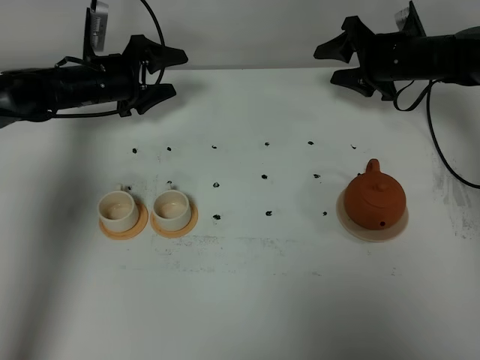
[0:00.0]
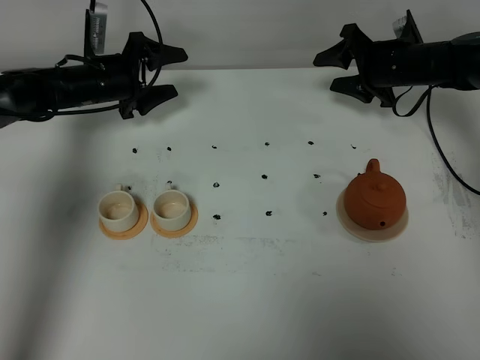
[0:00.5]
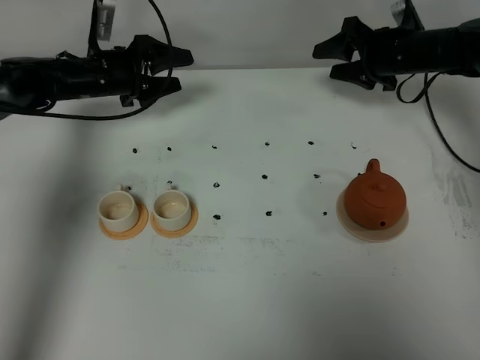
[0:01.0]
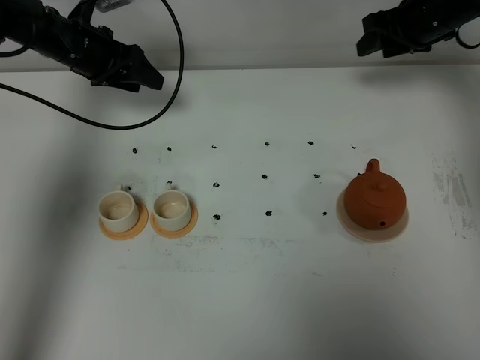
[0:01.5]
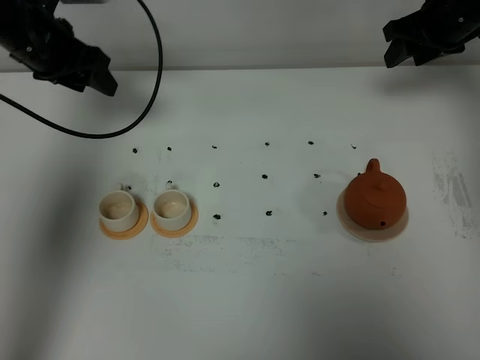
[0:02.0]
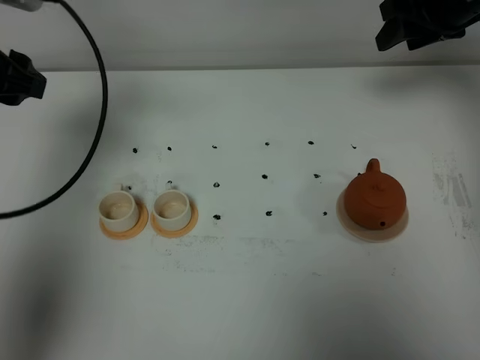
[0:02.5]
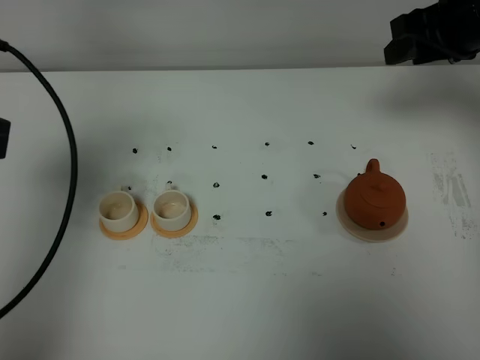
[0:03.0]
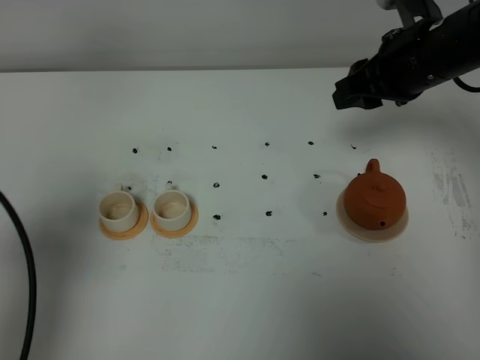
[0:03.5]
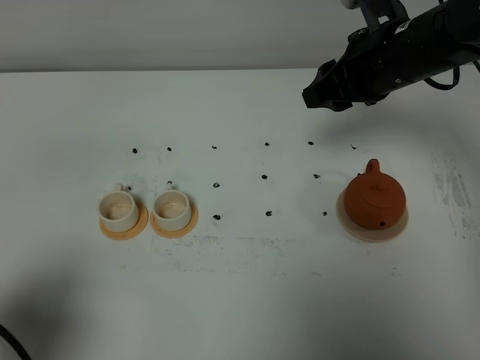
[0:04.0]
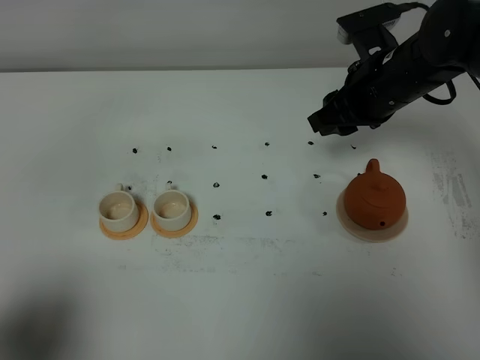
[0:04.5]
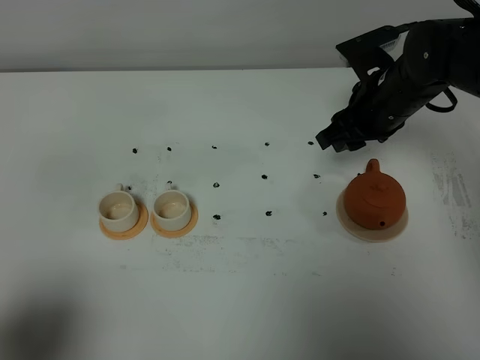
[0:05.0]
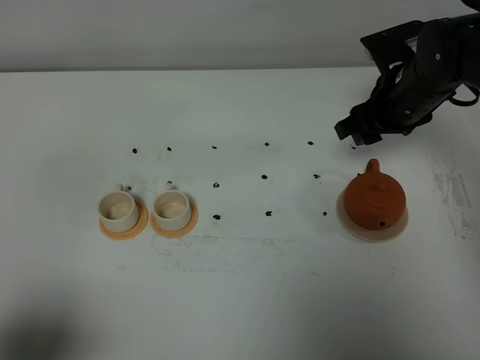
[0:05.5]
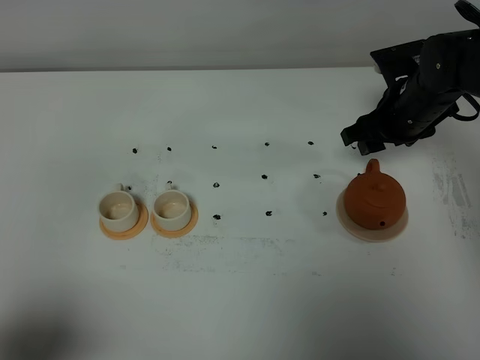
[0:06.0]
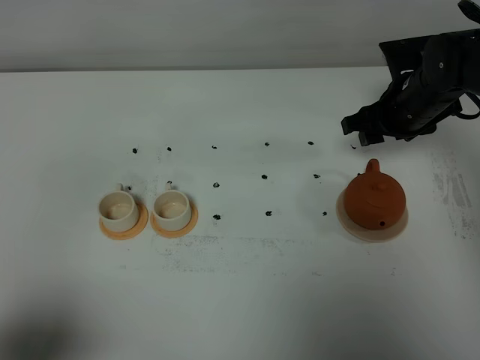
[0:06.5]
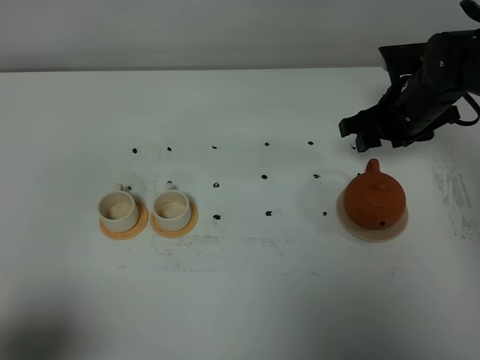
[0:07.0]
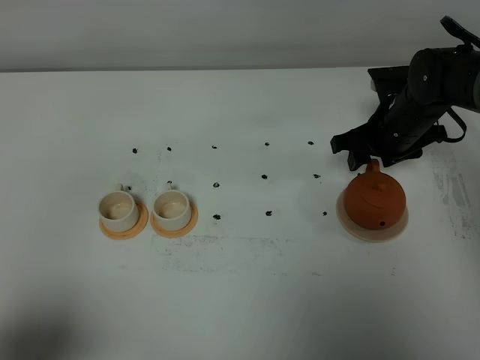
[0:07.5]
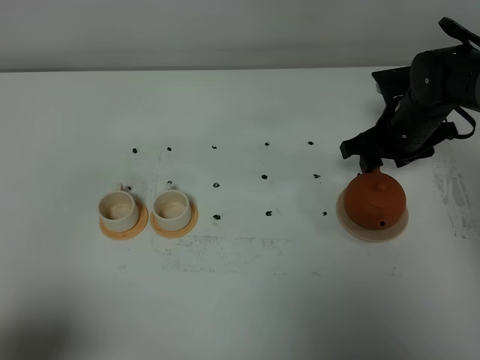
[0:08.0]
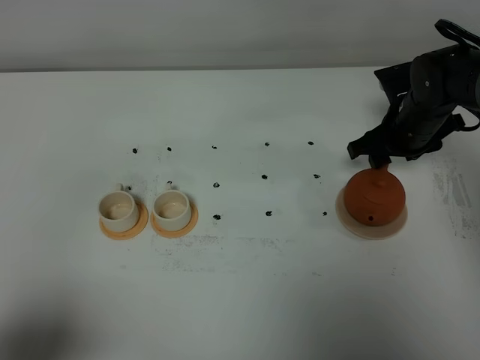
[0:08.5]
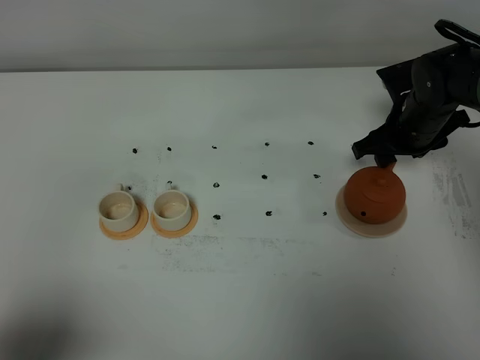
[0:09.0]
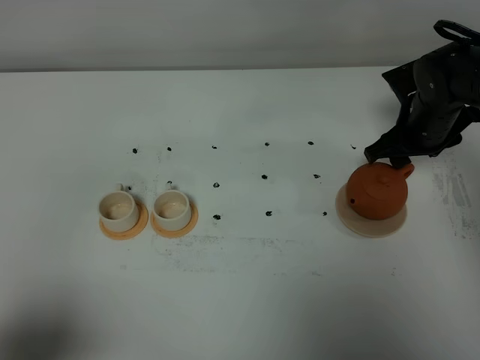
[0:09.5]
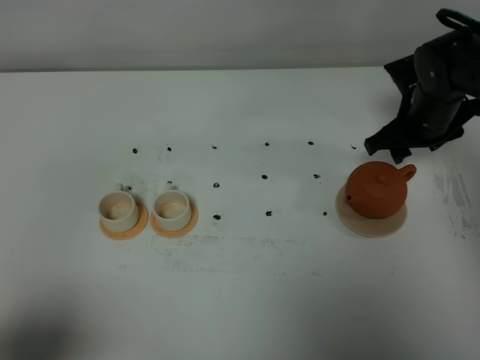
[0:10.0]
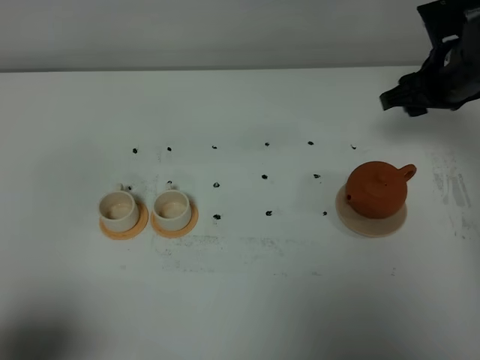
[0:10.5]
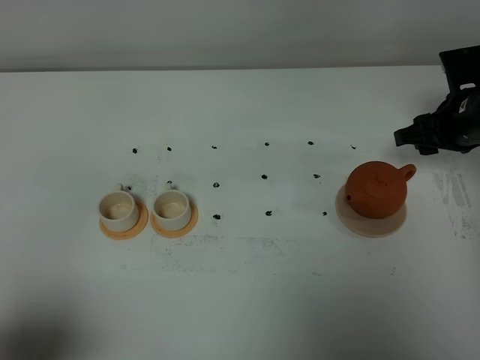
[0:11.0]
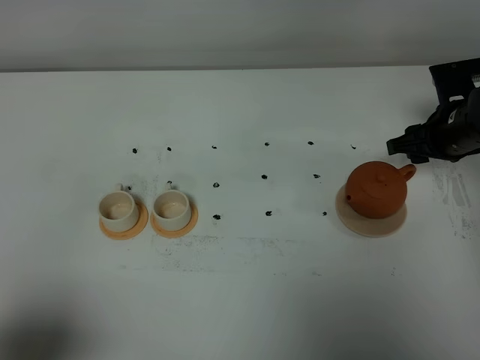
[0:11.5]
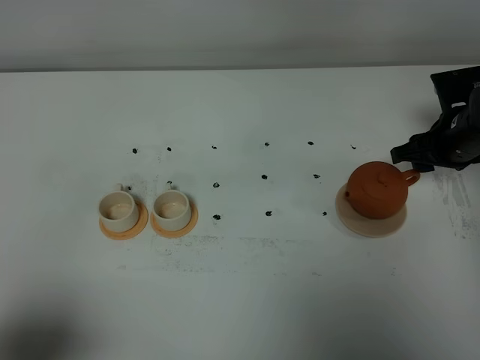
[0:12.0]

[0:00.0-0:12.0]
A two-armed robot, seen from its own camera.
Task of the whole recording: grasp the brown teapot and pour the tea into the two white teacups one by one, put the brown teapot back in its original place.
0:00.0 to 0:02.0: The grippers both shift upward by roughly 10 cm.
0:02.0 to 0:04.0: The left gripper shifts about 40 cm backward. The right gripper moves to the left and backward, approximately 15 cm.
0:04.0 to 0:06.0: The right gripper is displaced downward and to the right by roughly 10 cm. Meanwhile the left gripper travels backward by approximately 5 cm.
0:06.0 to 0:10.0: The grippers make only small movements.
0:10.0 to 0:12.0: The right gripper reaches roughly 5 cm upward, then returns.

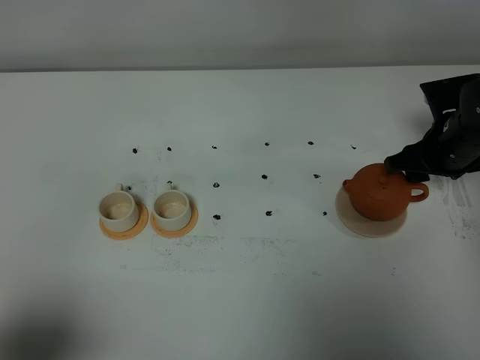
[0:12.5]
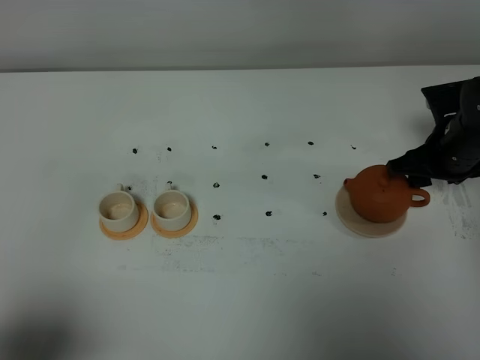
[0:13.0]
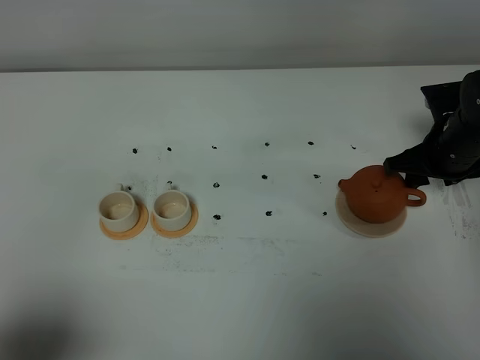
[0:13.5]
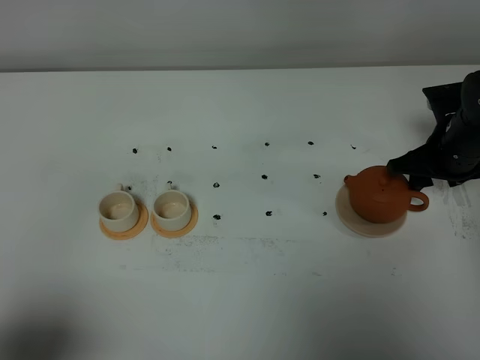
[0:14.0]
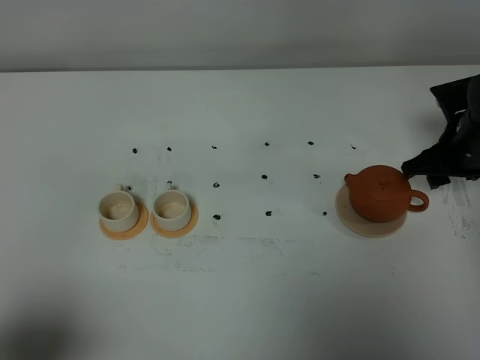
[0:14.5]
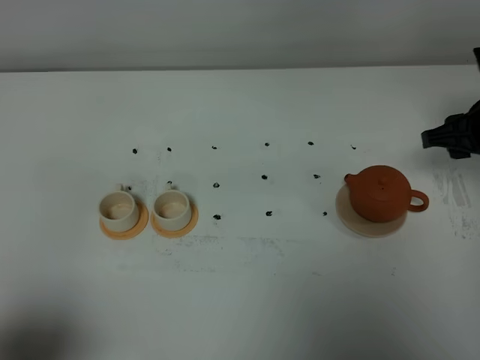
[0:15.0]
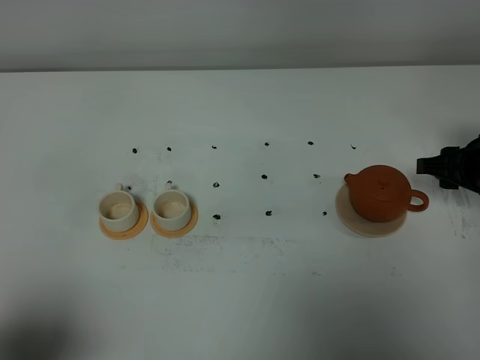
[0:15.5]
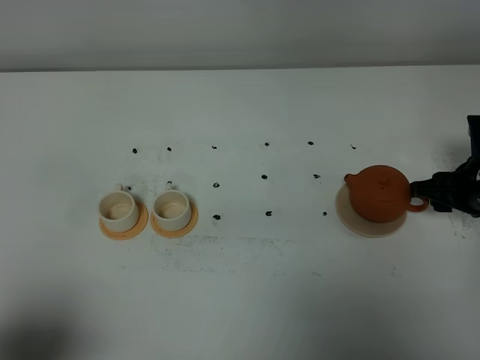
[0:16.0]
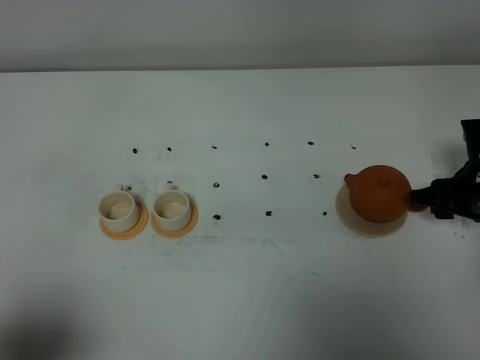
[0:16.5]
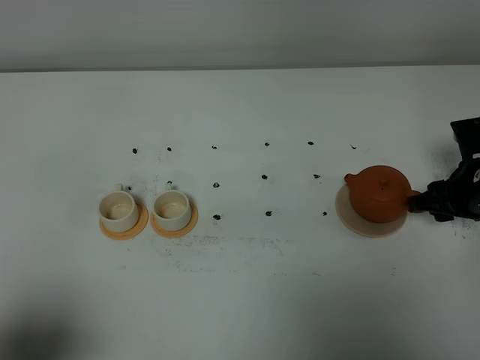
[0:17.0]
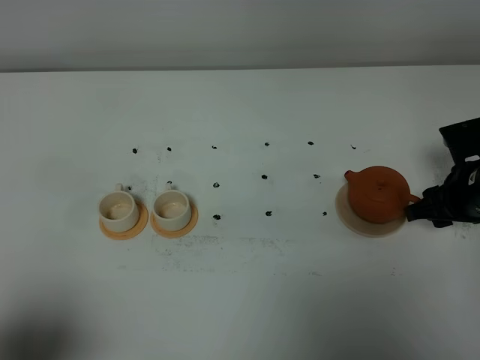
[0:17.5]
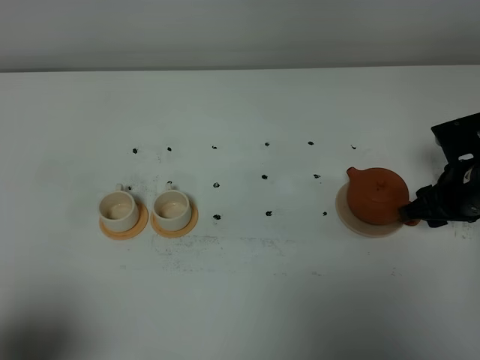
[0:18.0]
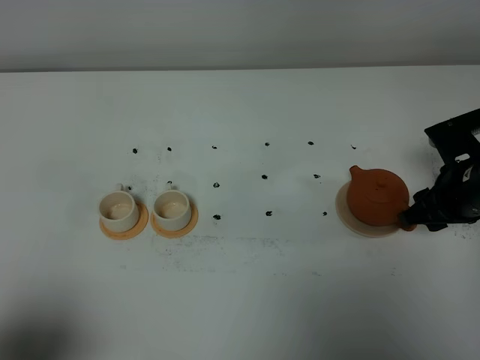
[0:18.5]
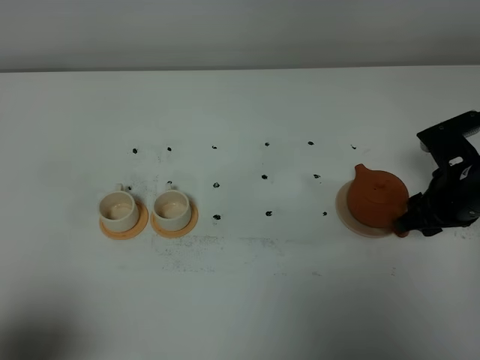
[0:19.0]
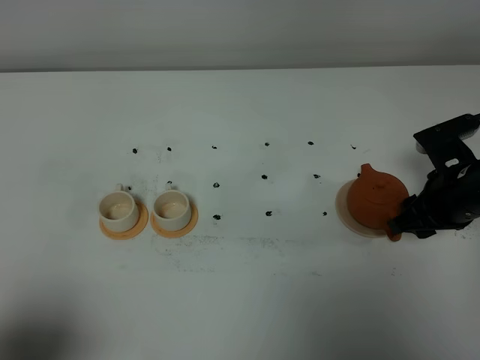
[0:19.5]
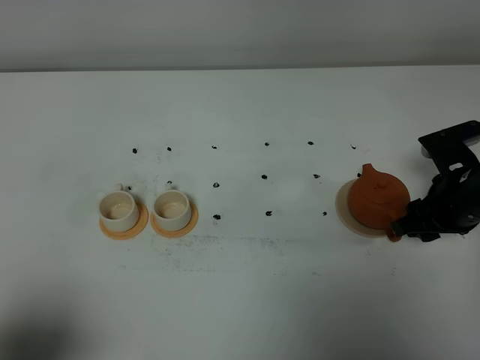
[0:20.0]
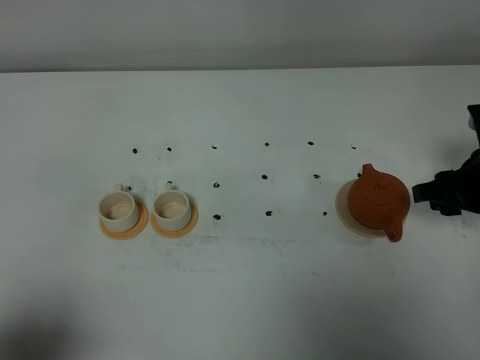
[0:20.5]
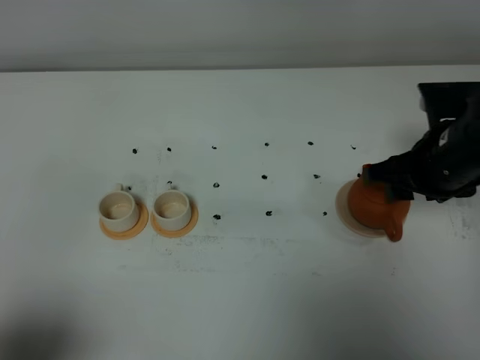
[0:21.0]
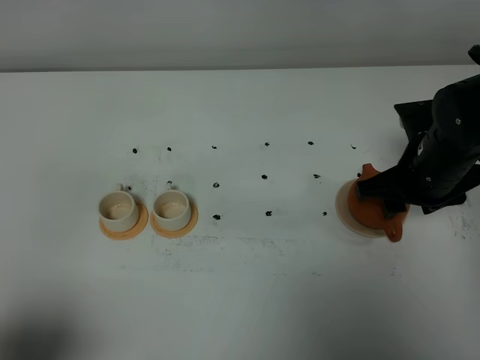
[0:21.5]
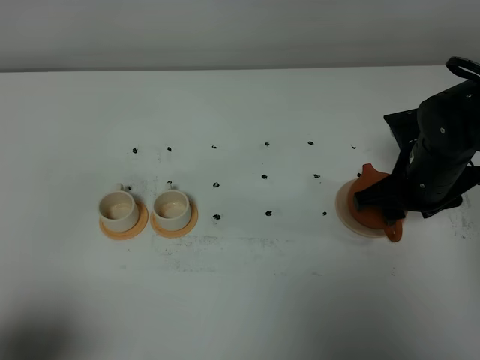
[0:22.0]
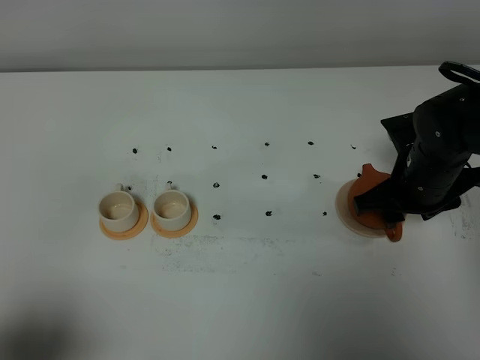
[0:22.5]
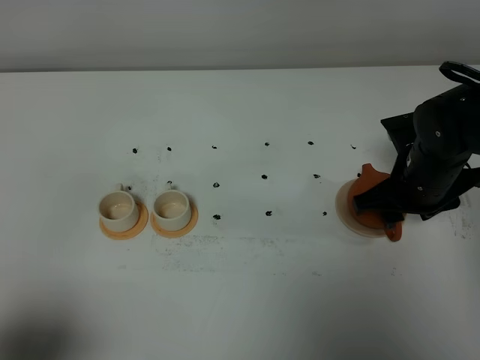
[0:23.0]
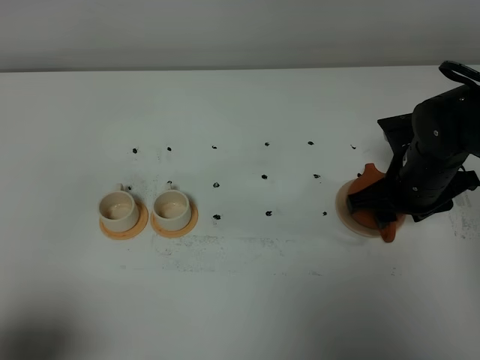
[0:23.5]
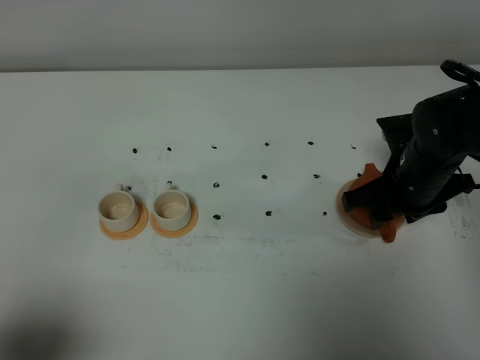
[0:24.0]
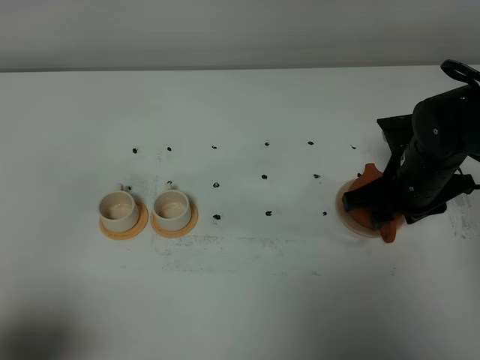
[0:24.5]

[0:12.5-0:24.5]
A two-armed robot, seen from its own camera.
Task of the whole recording: grasp the brown teapot and pour the tea into the two white teacups one by one, put the brown teapot back in its original place.
0:12.5 to 0:14.5: The grippers move only a little.
0:14.5 to 0:16.5: The right gripper travels backward by about 5 cm, and moves about 5 cm upward and comes back.
0:16.5 to 0:18.5: The grippers make only small movements.
0:18.5 to 0:20.5: The right gripper ends up some 5 cm from where it was.
0:20.5 to 0:22.5: The right gripper shifts some 5 cm to the left.
0:22.5 to 0:24.5: The grippers move only a little.

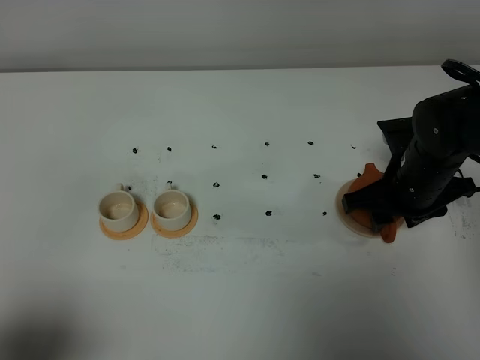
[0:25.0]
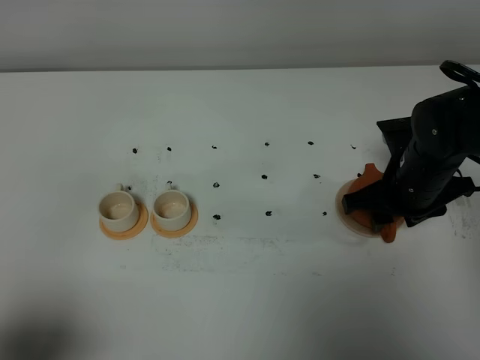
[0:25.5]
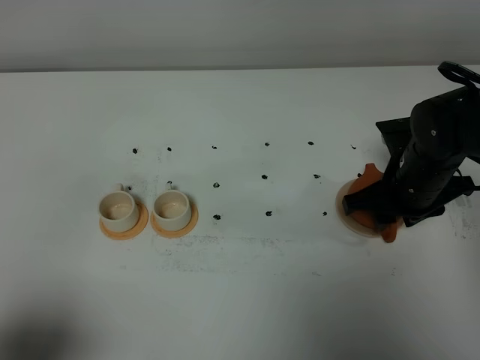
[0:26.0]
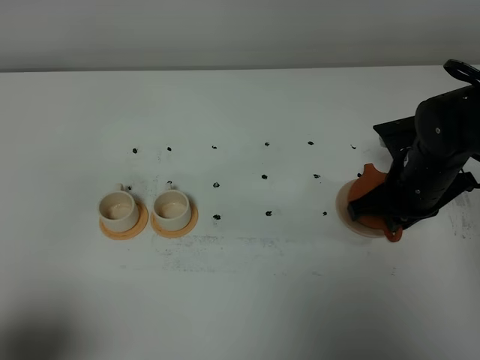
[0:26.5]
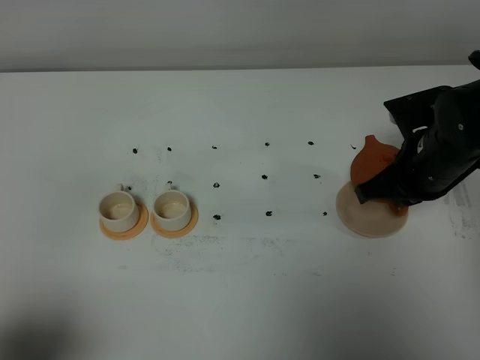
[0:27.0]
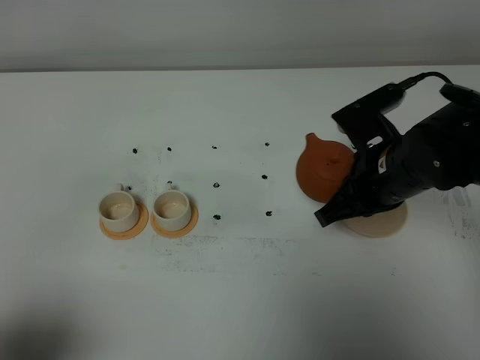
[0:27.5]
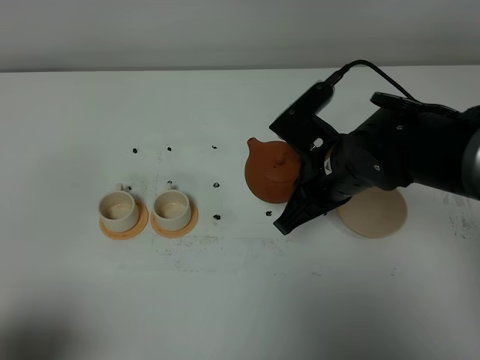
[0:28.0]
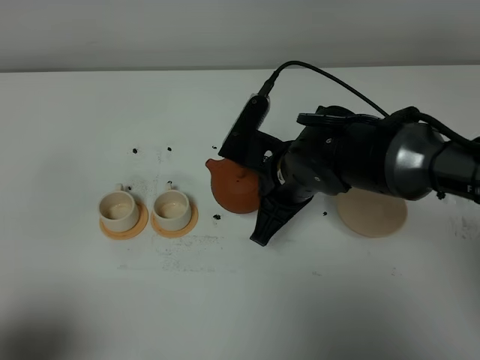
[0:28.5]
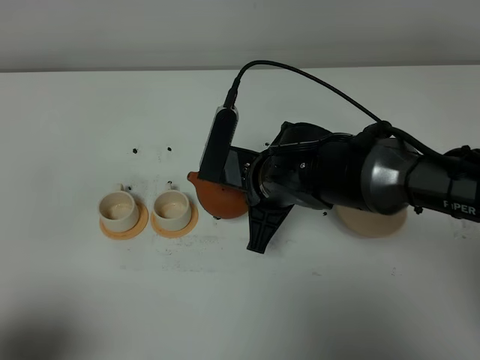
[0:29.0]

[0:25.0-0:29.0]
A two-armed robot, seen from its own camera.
Task of the whole recording: grasp the brown teapot and pour the tea into the two white teacups one by one, put the brown teapot back in its original place.
0:25.0 to 0:27.0: The right gripper closes up.
0:27.0 to 0:29.0: The right gripper is displaced to the left by roughly 20 cm.
